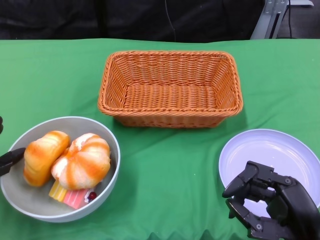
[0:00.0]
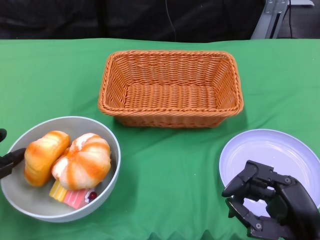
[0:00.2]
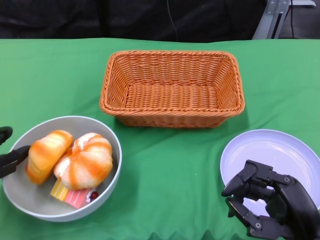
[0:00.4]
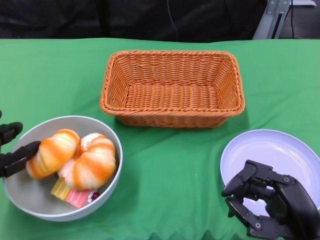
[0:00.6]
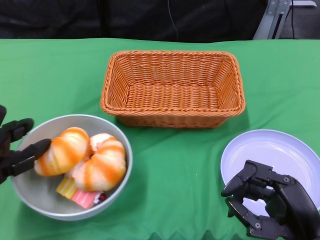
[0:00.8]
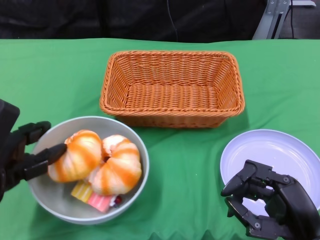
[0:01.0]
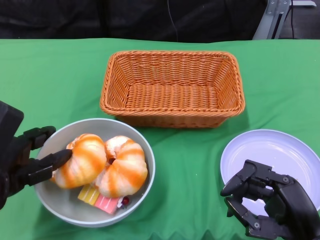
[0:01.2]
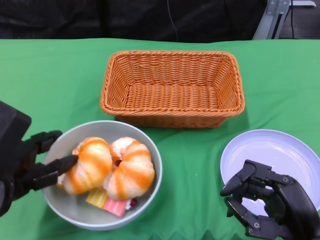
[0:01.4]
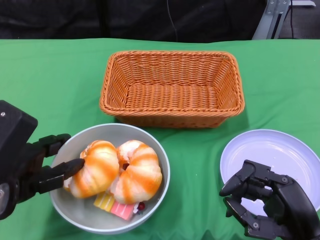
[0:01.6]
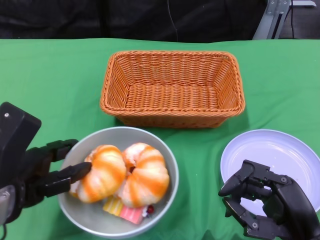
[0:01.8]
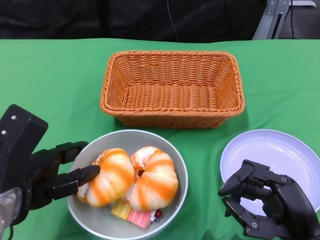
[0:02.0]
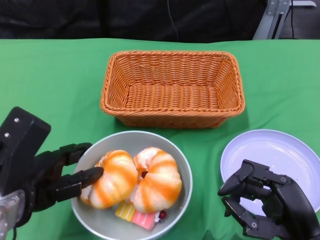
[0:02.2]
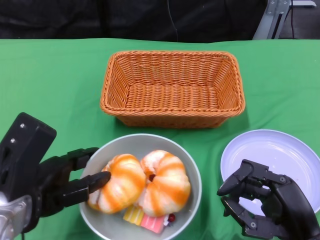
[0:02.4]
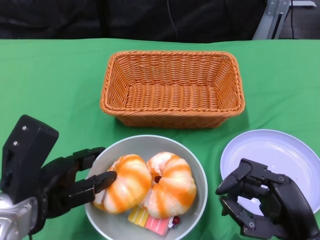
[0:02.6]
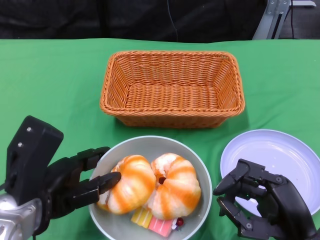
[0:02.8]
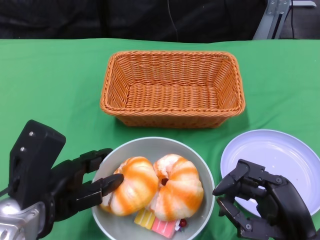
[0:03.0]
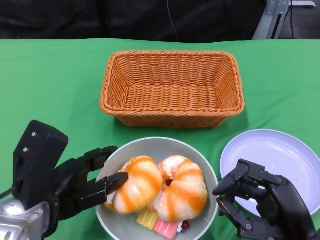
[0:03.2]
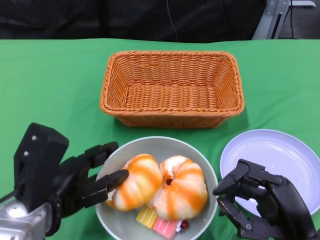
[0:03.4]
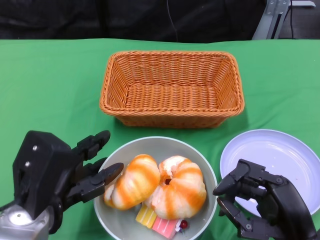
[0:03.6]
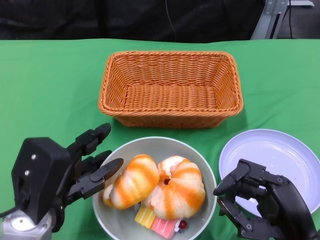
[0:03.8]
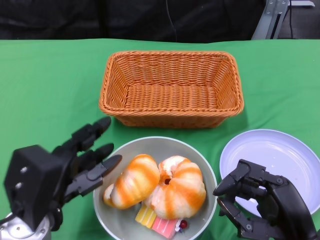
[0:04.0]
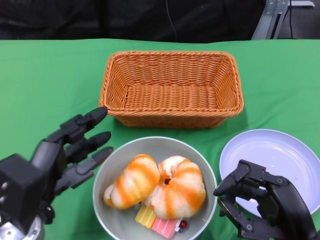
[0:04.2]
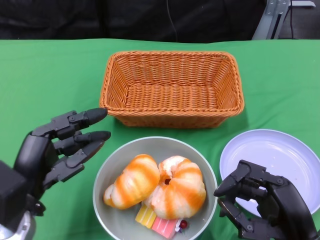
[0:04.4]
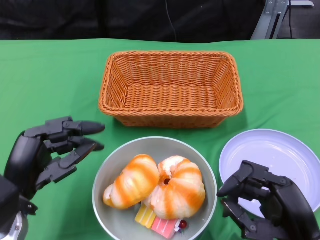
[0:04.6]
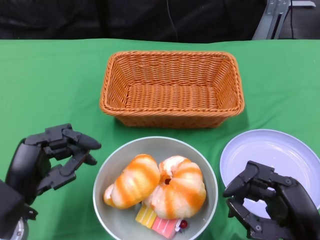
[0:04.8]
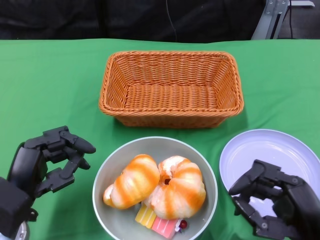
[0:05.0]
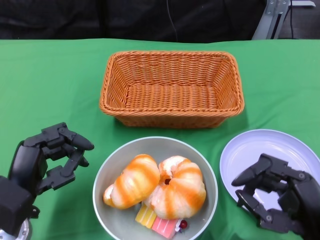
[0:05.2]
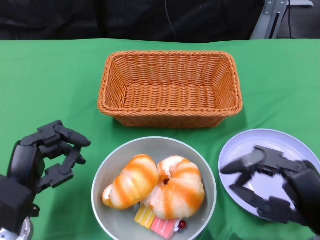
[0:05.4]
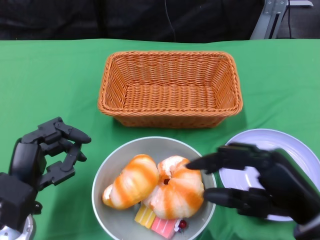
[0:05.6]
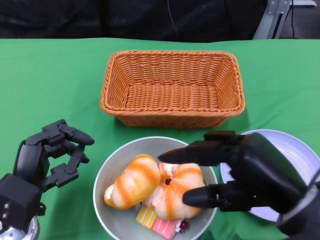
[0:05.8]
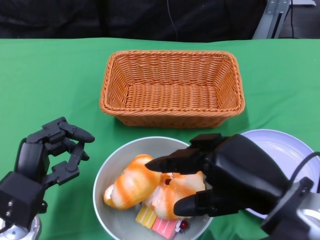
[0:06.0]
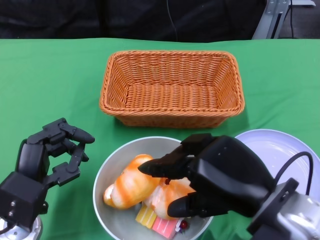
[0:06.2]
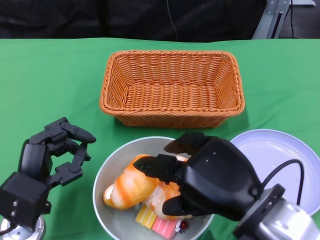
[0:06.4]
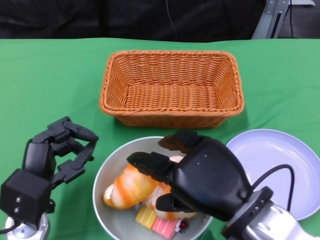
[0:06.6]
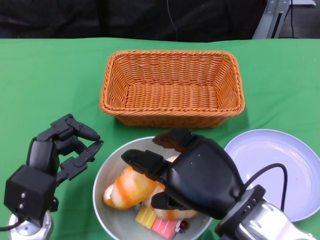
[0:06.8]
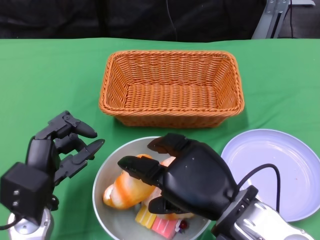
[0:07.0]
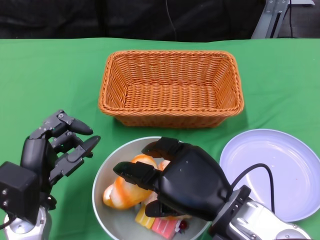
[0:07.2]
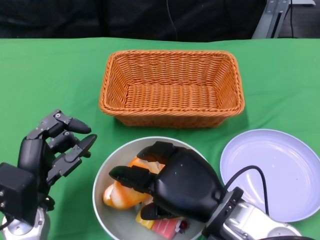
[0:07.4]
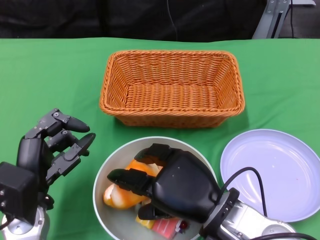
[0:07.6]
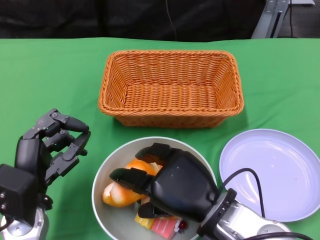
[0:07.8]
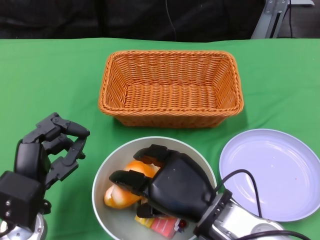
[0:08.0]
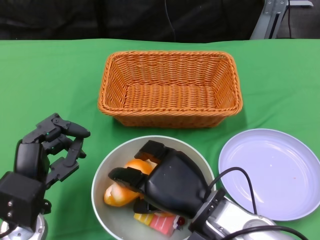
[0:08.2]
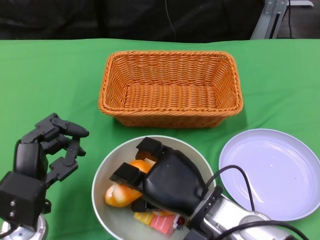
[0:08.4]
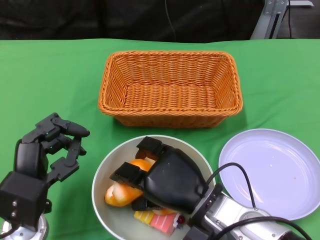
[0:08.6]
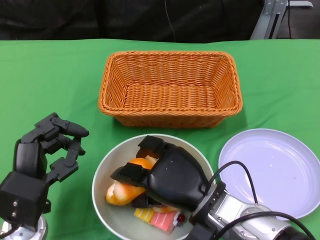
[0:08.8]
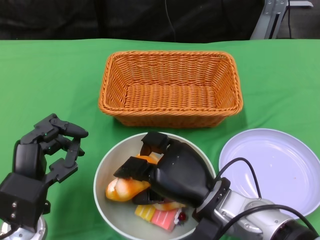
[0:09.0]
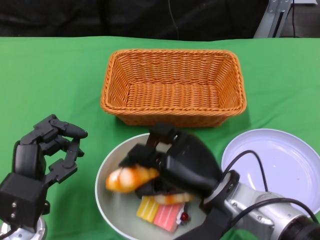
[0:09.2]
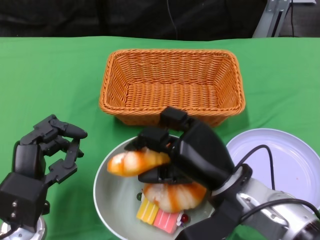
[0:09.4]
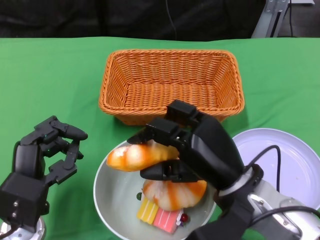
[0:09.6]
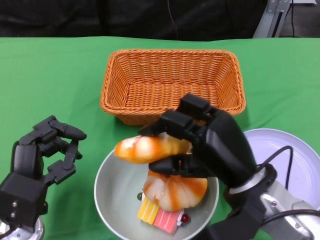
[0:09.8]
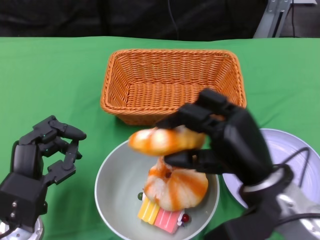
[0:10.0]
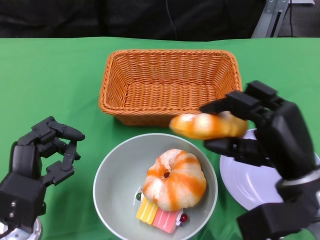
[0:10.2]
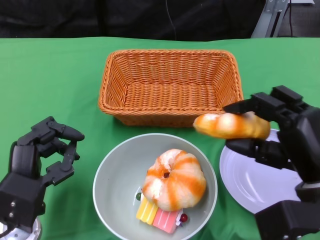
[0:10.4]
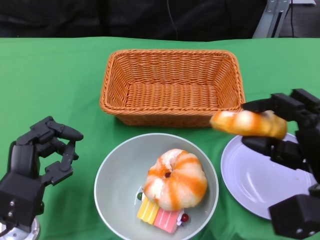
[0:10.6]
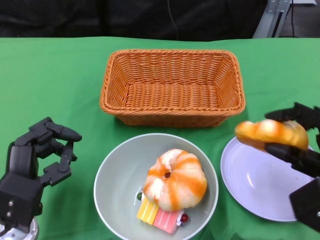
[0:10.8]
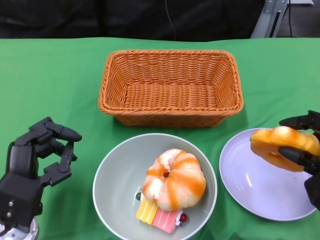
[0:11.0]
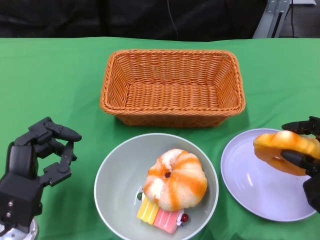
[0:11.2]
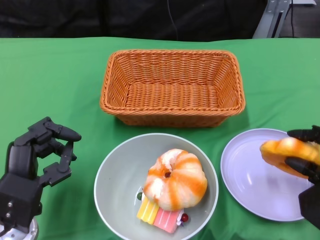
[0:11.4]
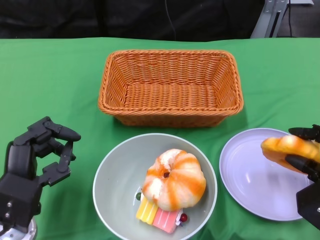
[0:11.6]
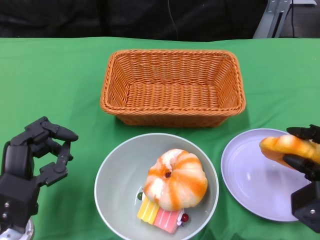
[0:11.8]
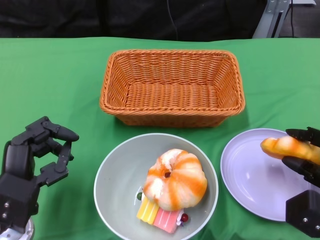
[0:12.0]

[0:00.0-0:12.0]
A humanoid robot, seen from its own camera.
Step, 0:00.0 to 0:04.4: Push the bowl to the center of the table using the left gripper.
0:00.0 to 0:01.6: The left hand heads to the right, covering some 5 cm.
0:04.4 to 0:06.0: The right hand moves upward, approximately 10 cm.
0:06.0 to 0:07.6: The right hand travels to the left and downward by about 10 cm.
0:09.0 to 0:10.4: The right hand travels to the right and upward by approximately 15 cm.
0:10.4 to 0:12.0: The right hand shifts roughly 10 cm downward and to the right.

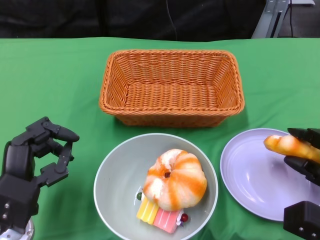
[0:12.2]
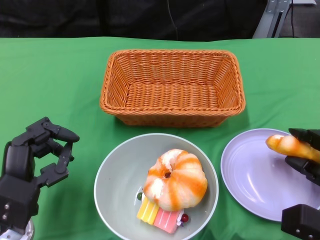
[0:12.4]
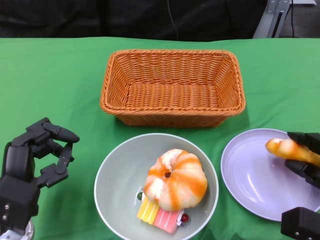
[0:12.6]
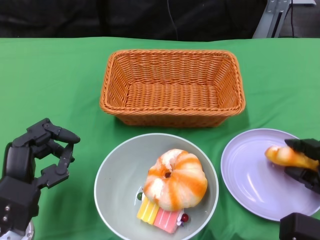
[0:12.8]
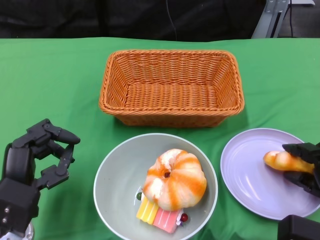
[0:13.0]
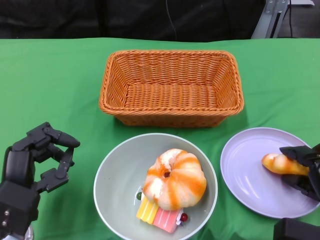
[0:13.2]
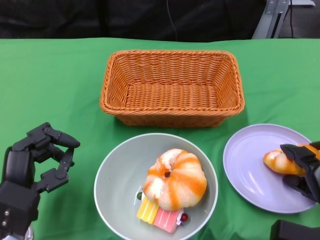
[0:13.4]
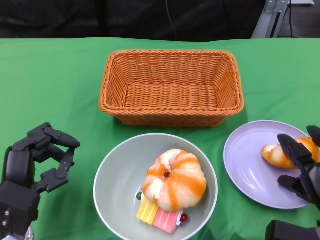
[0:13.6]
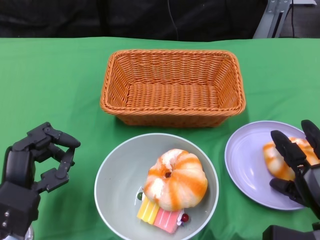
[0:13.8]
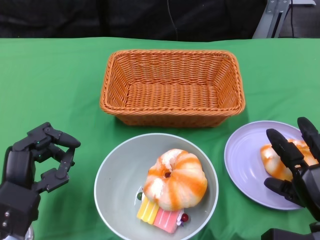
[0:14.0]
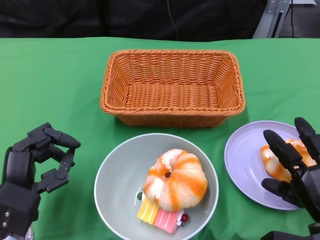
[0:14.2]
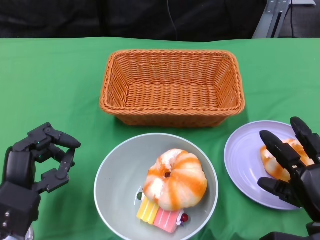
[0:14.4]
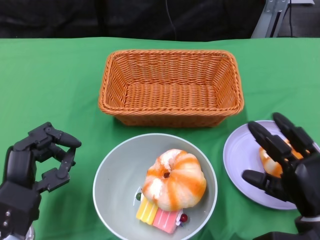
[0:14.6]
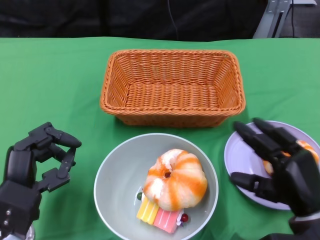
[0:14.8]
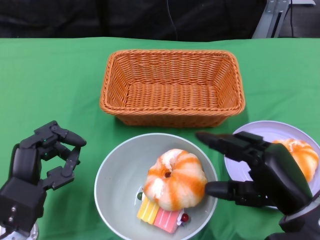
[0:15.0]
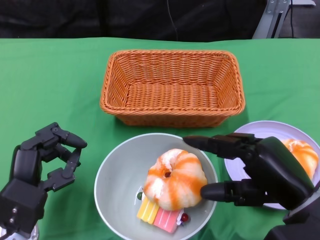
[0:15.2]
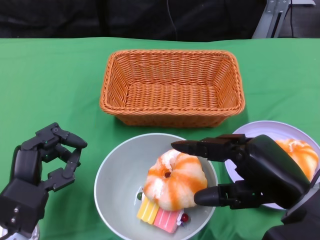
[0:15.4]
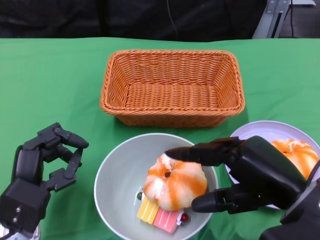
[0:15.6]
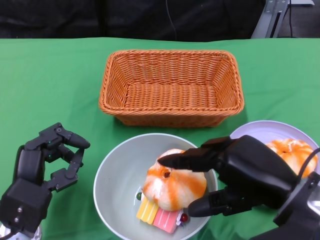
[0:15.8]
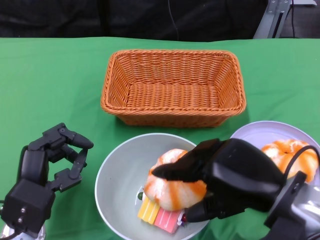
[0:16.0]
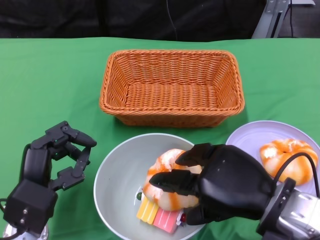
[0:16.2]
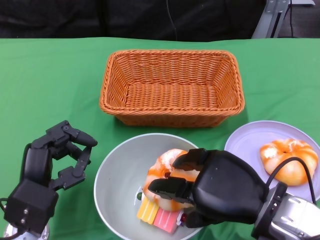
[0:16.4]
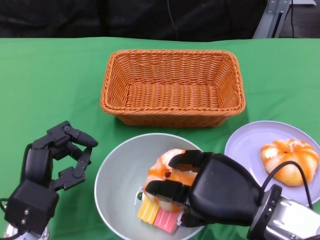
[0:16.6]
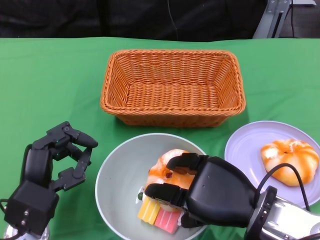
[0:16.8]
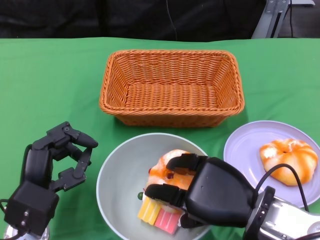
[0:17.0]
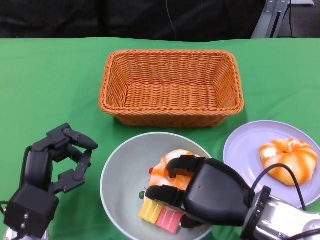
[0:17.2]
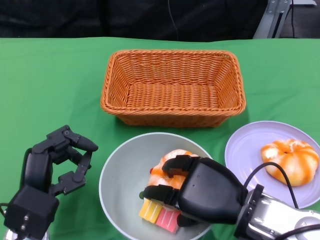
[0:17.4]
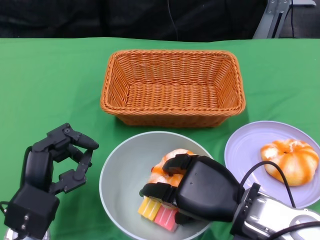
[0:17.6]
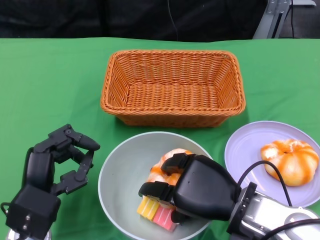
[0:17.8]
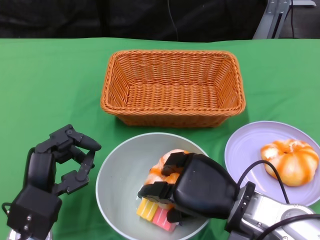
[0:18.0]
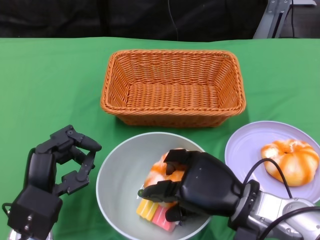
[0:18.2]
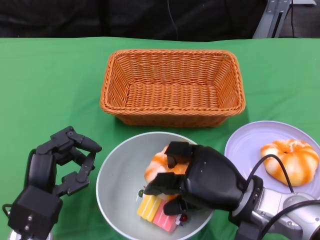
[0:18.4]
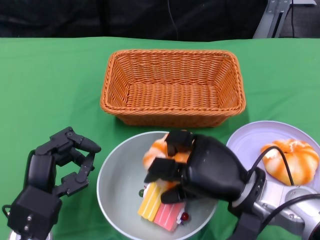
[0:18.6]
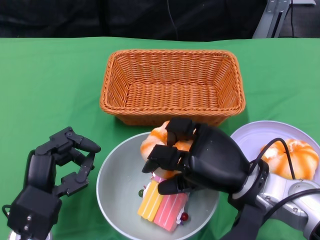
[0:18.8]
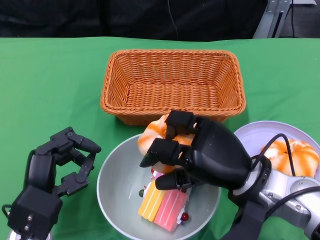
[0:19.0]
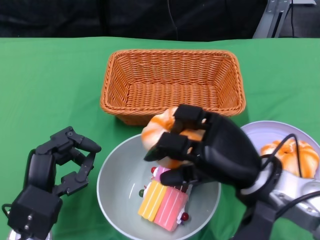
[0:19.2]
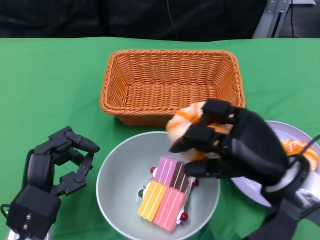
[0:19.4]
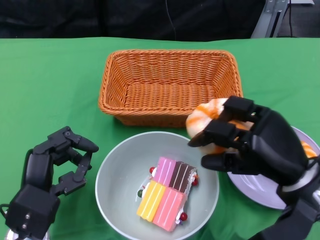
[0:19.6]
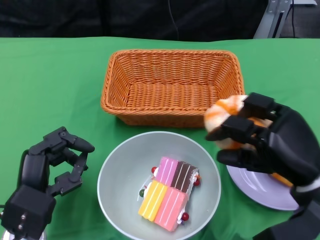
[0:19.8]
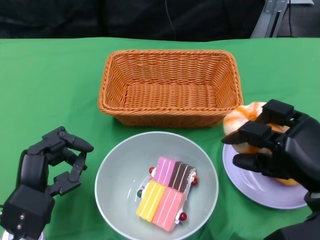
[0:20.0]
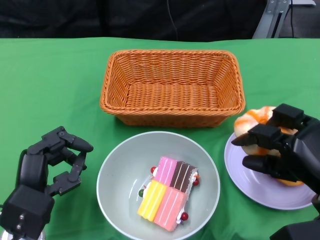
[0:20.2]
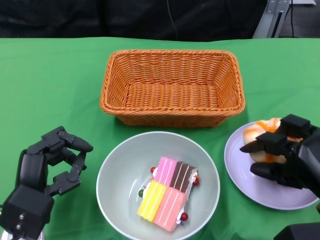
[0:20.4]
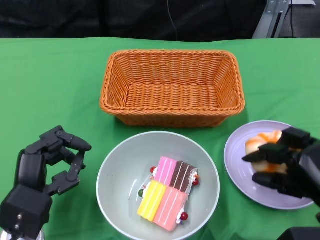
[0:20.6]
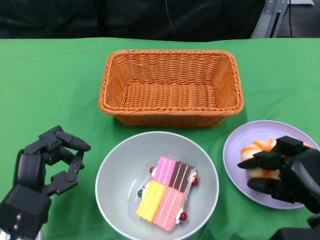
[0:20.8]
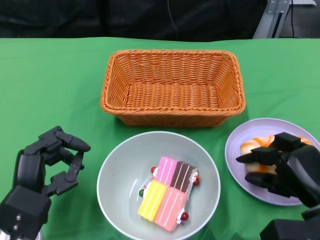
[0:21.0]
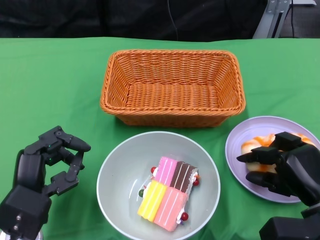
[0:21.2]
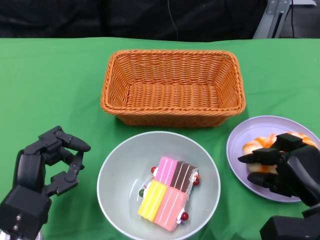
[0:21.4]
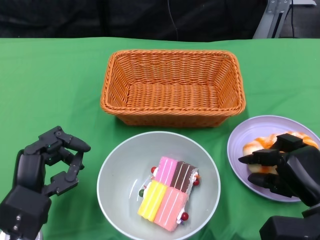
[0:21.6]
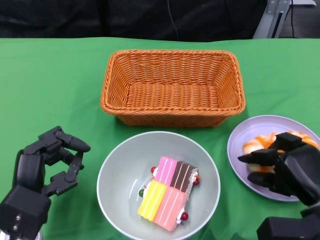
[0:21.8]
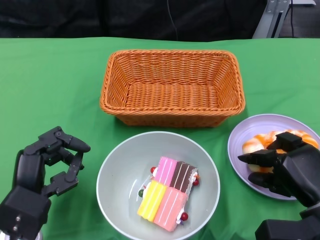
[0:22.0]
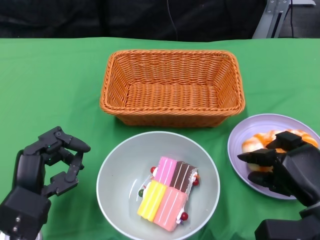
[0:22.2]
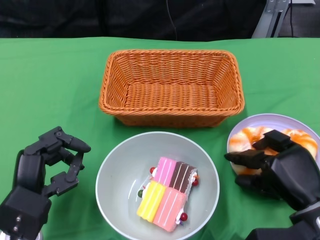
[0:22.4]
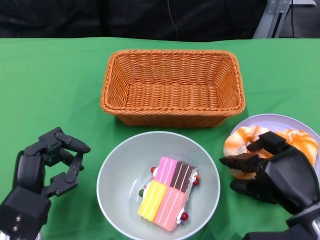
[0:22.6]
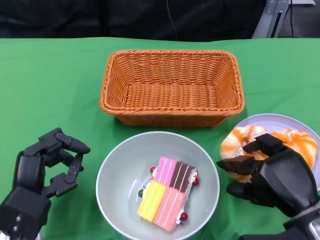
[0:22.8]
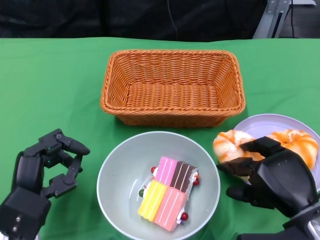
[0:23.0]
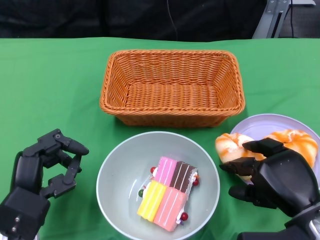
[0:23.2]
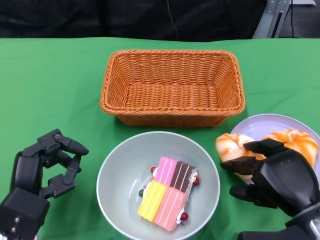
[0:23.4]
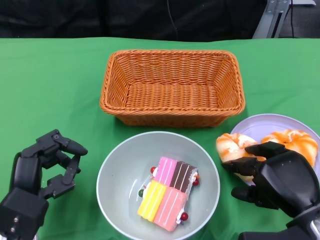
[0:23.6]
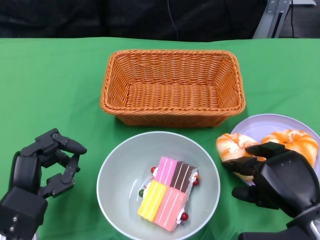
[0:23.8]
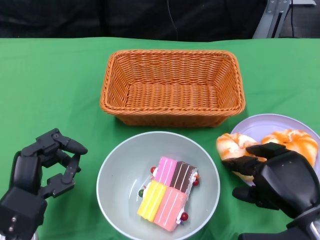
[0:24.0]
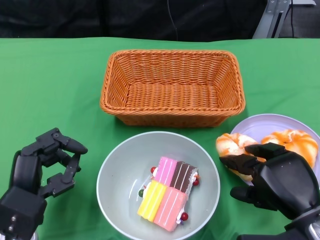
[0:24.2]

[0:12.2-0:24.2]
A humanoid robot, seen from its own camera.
0:13.8 to 0:15.2: The right hand is displaced upward and to the left by approximately 15 cm.
0:16.6 to 0:18.2: The right hand moves some 5 cm.
0:18.2 to 0:19.8: The right hand shifts approximately 10 cm to the right.
0:19.8 to 0:21.2: The right hand heads downward, covering about 10 cm.
0:21.2 to 0:24.2: There are only small adjustments of the hands.
